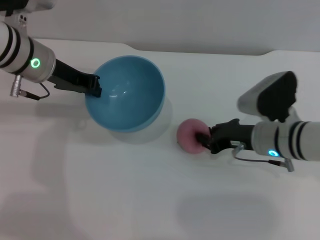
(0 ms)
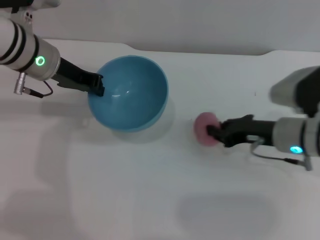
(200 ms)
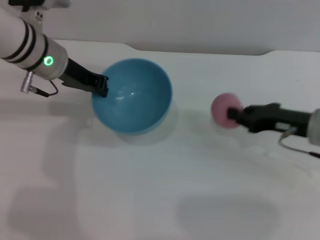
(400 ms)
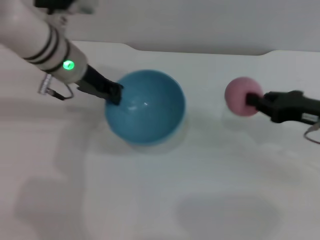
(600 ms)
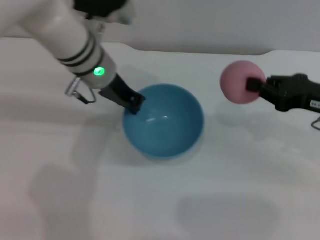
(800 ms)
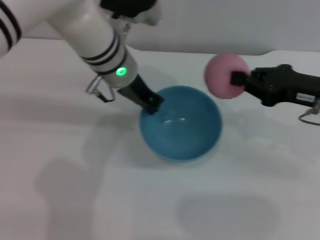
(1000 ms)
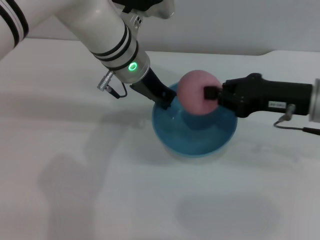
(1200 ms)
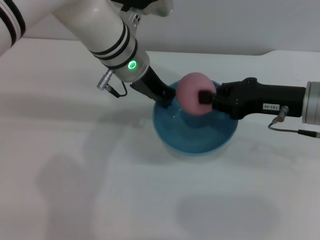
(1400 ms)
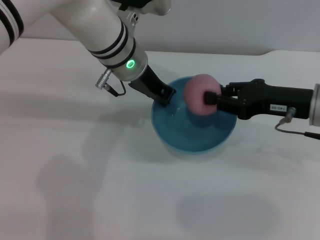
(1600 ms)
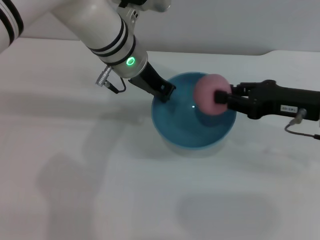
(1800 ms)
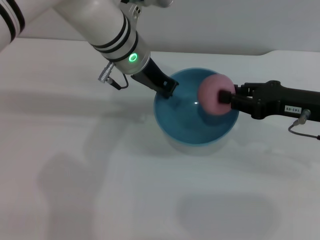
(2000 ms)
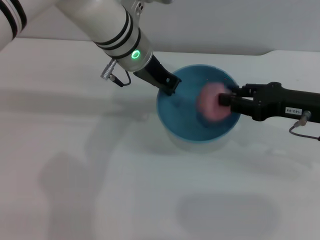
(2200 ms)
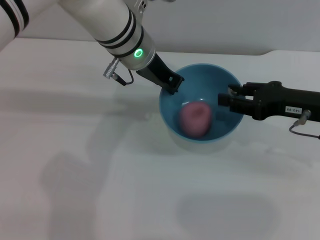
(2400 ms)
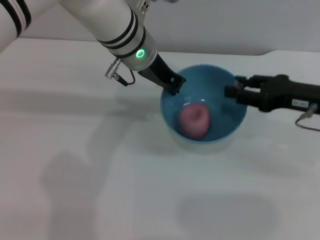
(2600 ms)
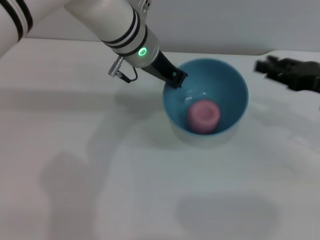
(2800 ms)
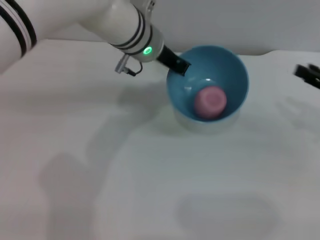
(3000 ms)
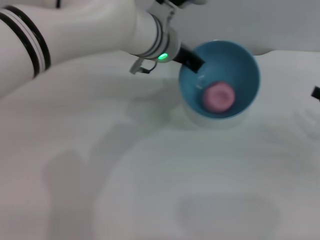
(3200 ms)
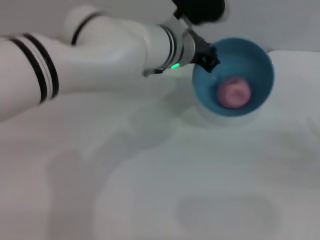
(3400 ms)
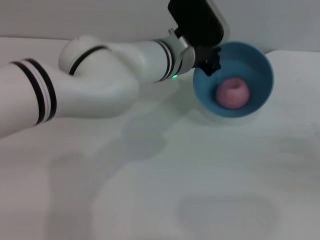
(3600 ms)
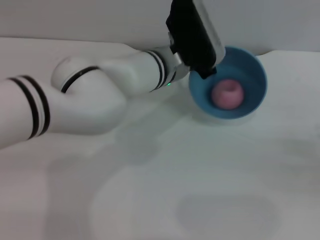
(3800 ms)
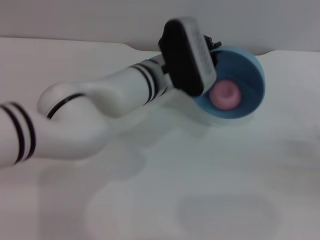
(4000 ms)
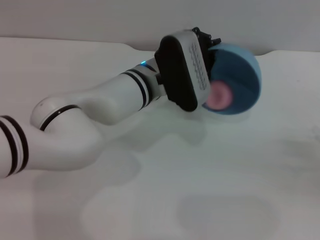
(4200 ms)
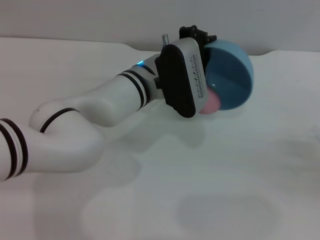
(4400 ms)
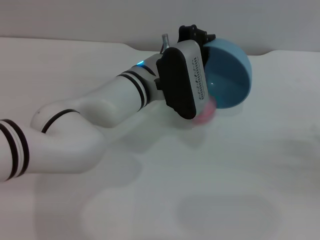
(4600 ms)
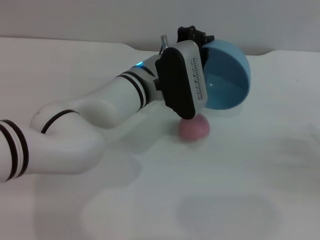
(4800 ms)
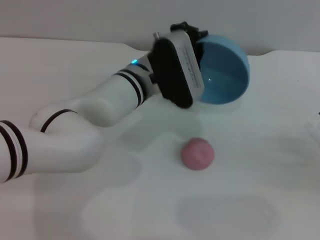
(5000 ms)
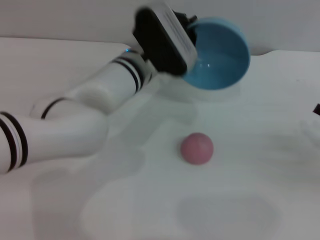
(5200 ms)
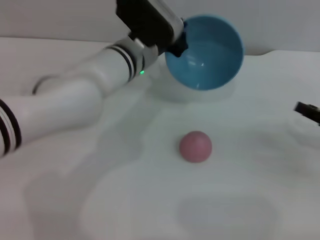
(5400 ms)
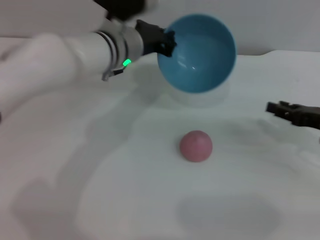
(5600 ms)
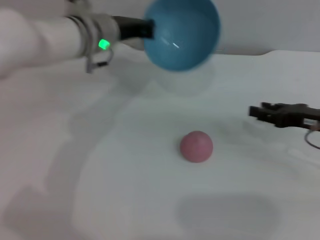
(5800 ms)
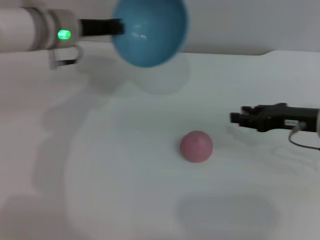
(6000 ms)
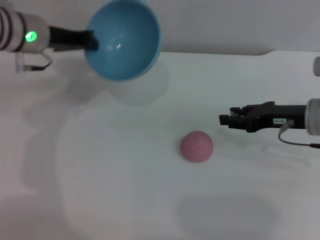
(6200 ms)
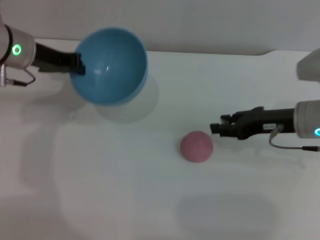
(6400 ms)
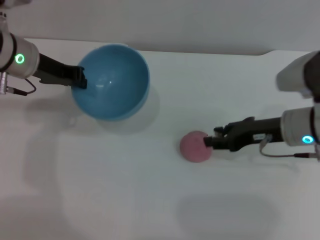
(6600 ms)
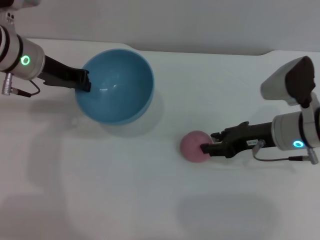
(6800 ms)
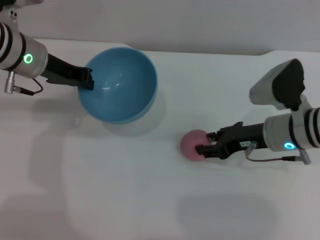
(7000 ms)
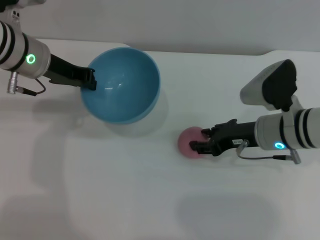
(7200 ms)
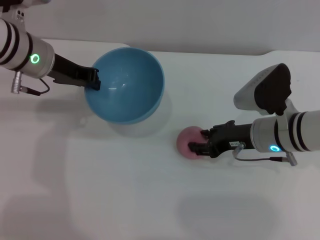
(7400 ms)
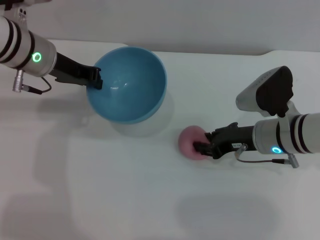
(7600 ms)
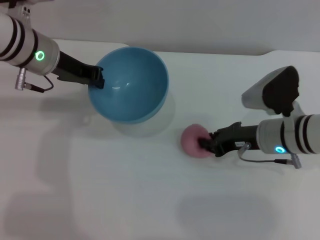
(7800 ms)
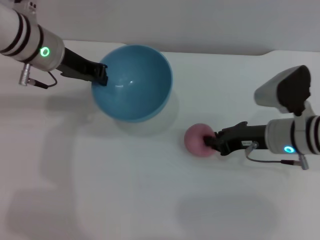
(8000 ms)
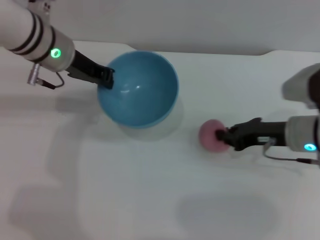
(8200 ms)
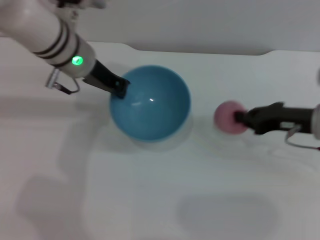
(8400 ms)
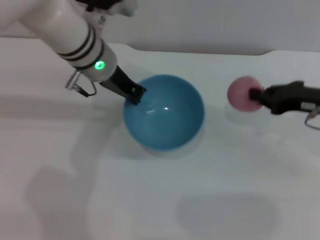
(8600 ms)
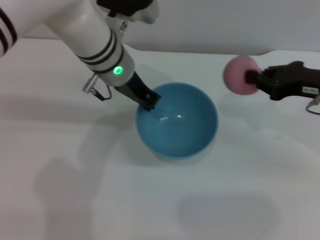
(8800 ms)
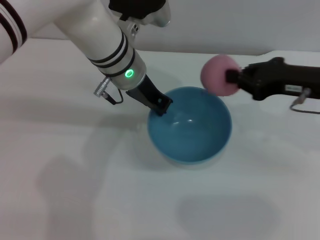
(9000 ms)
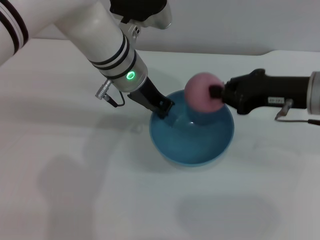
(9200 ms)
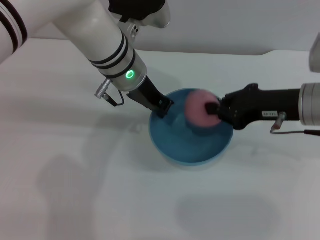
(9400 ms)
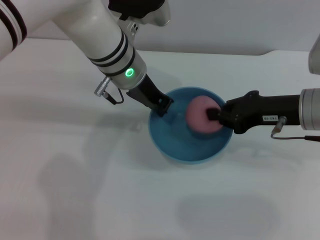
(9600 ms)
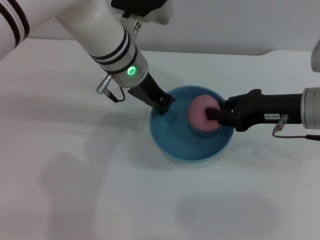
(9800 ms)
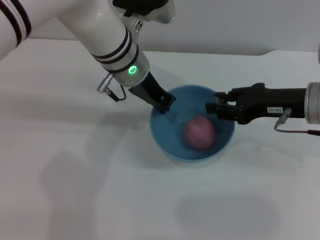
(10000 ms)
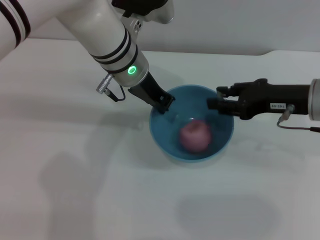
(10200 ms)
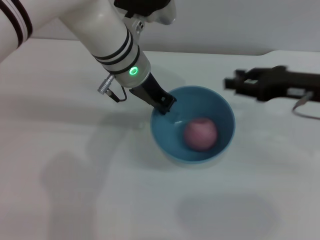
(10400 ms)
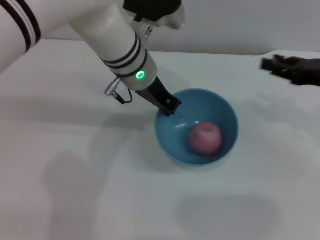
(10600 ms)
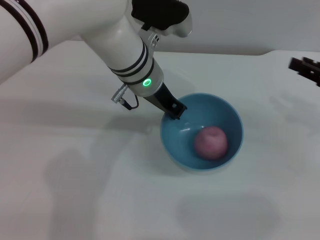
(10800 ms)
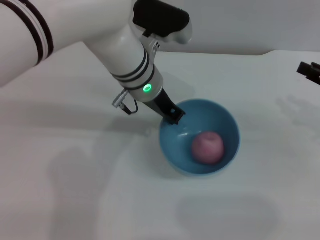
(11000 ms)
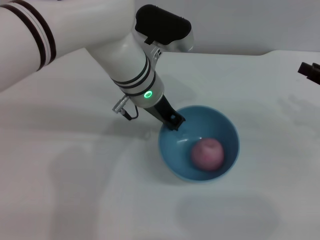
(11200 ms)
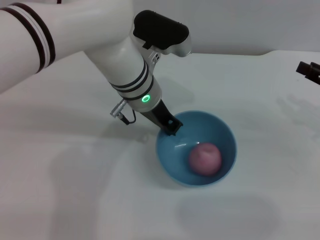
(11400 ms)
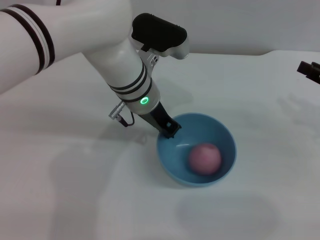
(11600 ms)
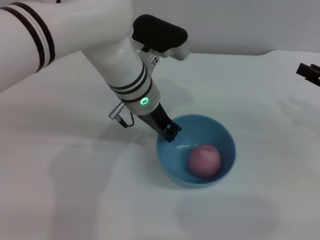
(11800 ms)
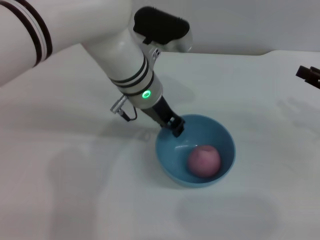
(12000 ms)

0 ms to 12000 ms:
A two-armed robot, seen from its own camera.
Task of the whole recording: put the peach into the blue bowl and pour it out repeatedly.
Step, 800 ms to 2600 ms: Place the peach into the bowl.
Step, 3000 ms to 6000 ms: Pour the peach out of bowl.
Step, 6200 ms to 8400 ms: Pick up the peach with the right gripper.
Step, 8600 ms to 10200 ms: Place the peach into the bowl.
0 ms to 1600 ms: The left gripper is displaced to the right by some 15 cm; the right gripper travels upward and to the right by roughly 10 cm.
1600 ms to 3000 ms: The right gripper goes about 10 cm to the right, and opens its fingers.
3000 ms to 4400 ms: Both grippers move downward and backward, some 10 cm.
4400 ms to 6000 ms: The left gripper moves to the left and upward, roughly 15 cm, while the right gripper heads to the left and forward, covering roughly 15 cm.
6000 ms to 7600 ms: The right gripper shifts some 10 cm to the left.
7600 ms to 9000 ms: The right gripper heads upward and to the right, covering approximately 10 cm, and closes its fingers. The left gripper goes approximately 15 cm to the right.
9000 ms to 10400 ms: The right gripper opens its fingers.
10400 ms to 12000 ms: The right gripper travels to the right by about 10 cm.

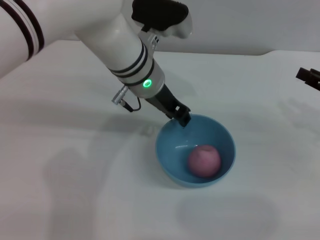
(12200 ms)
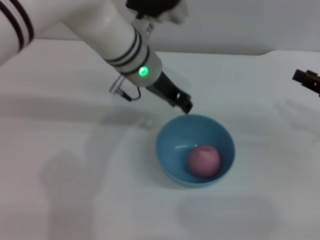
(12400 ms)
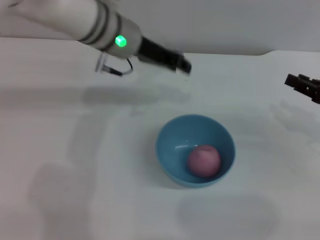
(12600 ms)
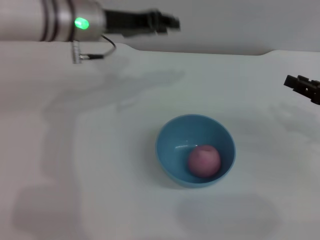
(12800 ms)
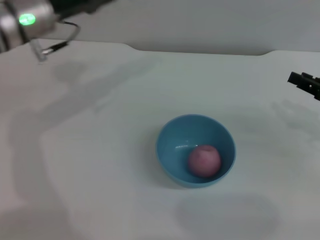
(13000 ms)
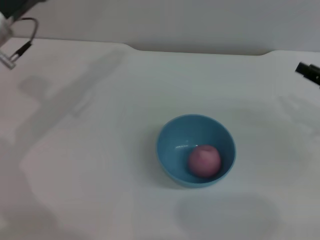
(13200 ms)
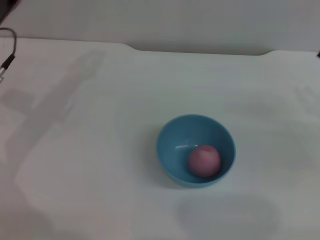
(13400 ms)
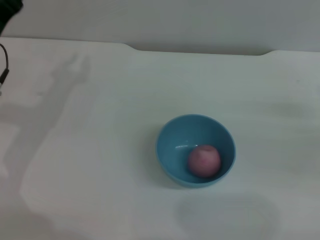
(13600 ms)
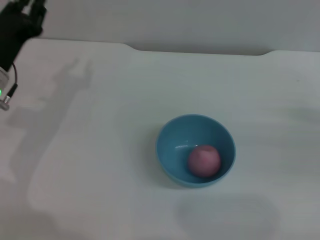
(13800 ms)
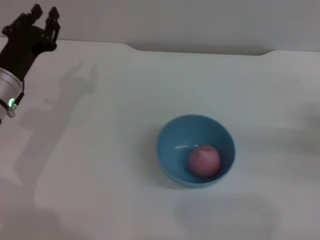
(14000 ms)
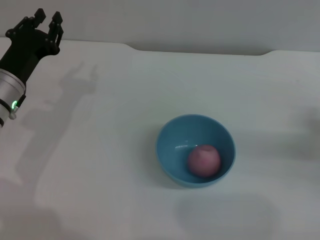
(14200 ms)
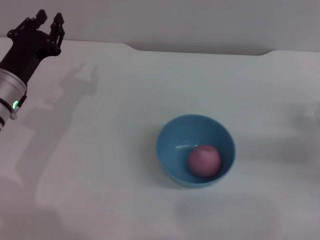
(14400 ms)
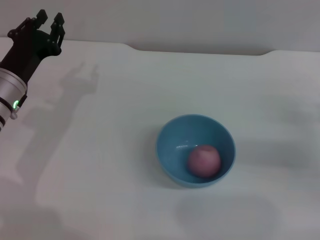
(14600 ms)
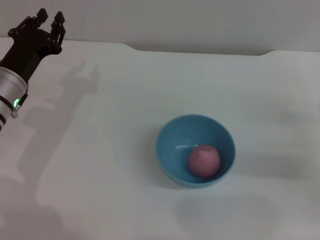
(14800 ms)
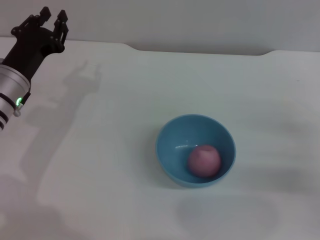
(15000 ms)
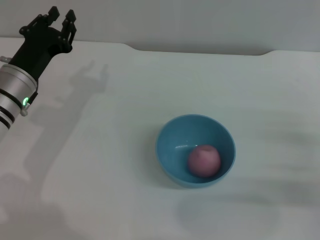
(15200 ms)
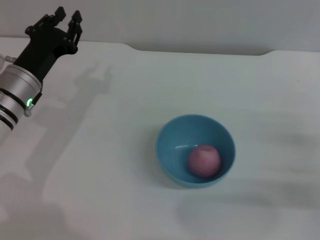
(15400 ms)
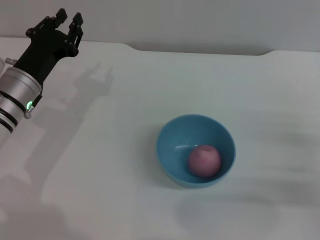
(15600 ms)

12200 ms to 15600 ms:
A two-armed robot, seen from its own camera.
Task of the whole recording: put the peach into the blue bowl and pour it out repeatedly.
12200 ms to 13800 ms: The right gripper shifts by about 5 cm. The left gripper heads to the left, covering approximately 20 cm.
